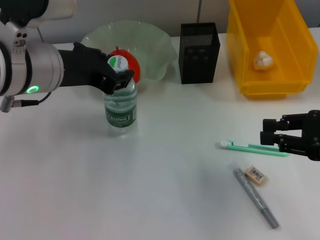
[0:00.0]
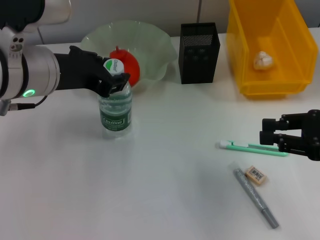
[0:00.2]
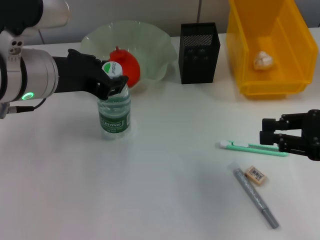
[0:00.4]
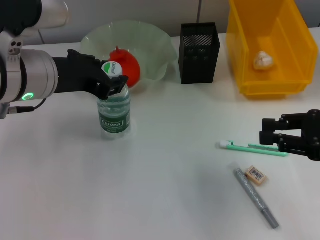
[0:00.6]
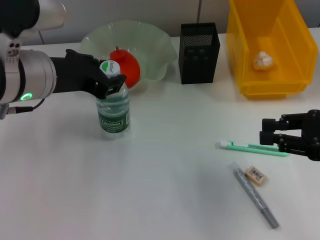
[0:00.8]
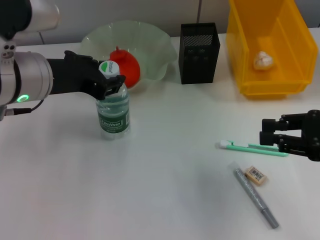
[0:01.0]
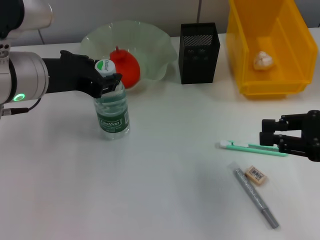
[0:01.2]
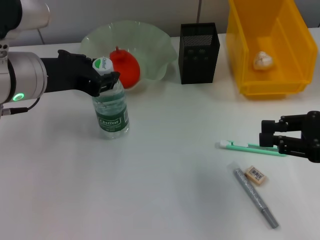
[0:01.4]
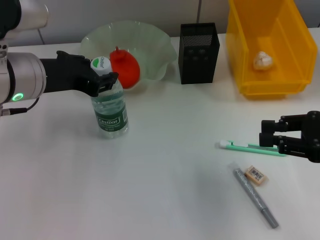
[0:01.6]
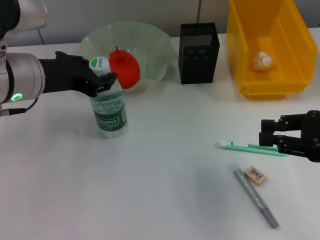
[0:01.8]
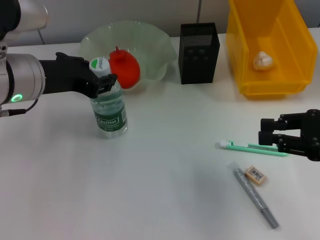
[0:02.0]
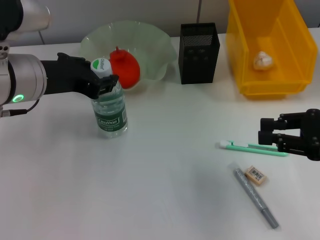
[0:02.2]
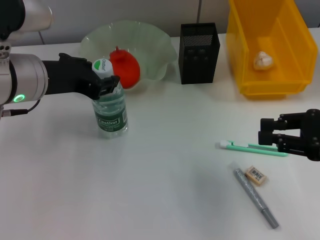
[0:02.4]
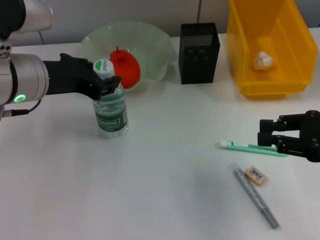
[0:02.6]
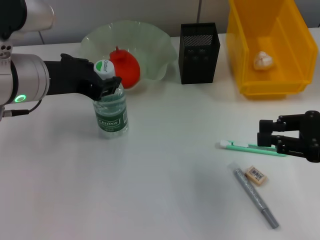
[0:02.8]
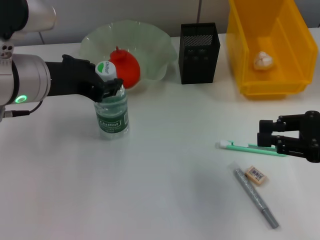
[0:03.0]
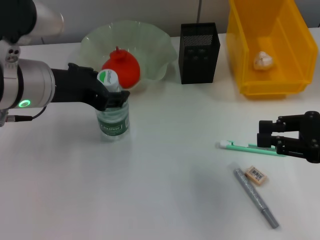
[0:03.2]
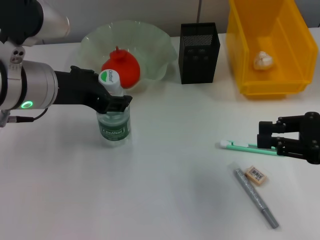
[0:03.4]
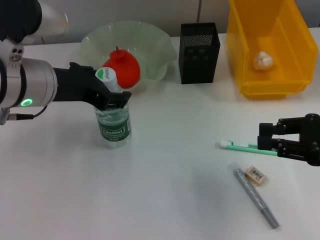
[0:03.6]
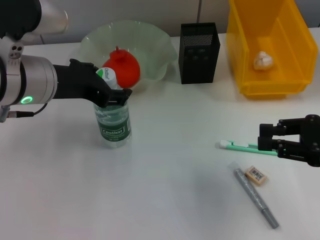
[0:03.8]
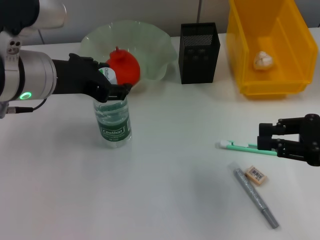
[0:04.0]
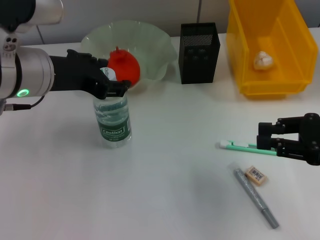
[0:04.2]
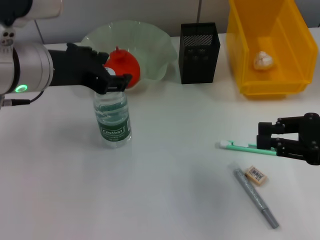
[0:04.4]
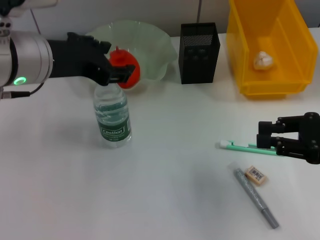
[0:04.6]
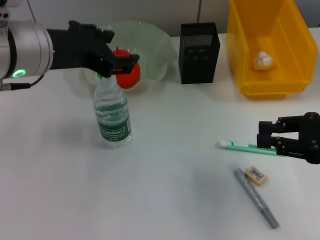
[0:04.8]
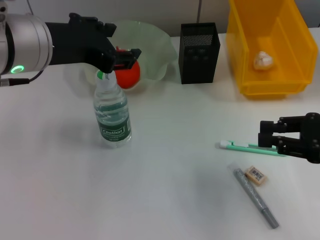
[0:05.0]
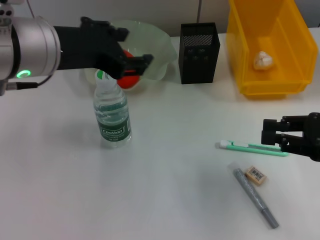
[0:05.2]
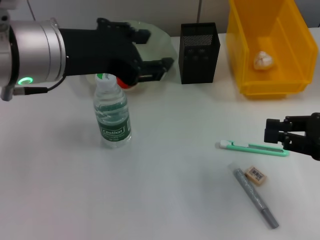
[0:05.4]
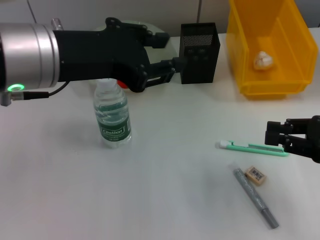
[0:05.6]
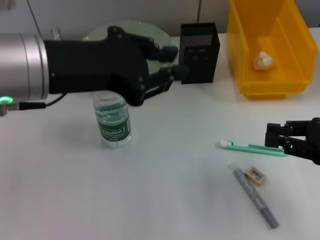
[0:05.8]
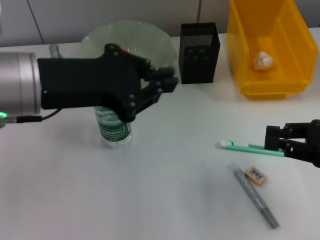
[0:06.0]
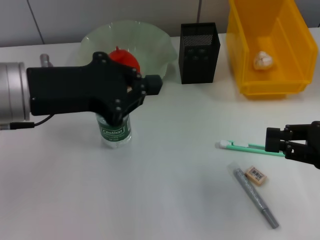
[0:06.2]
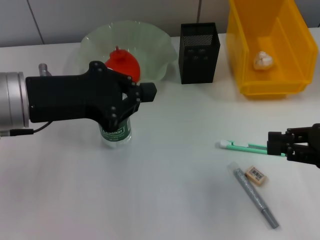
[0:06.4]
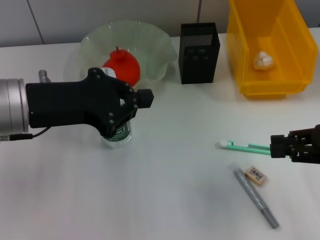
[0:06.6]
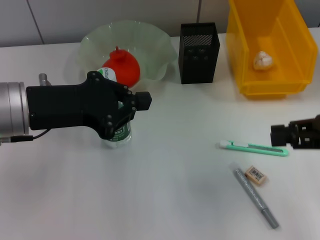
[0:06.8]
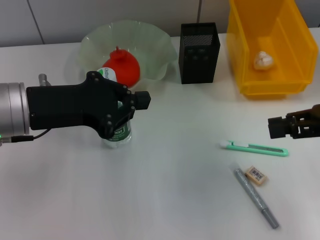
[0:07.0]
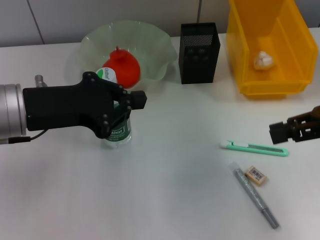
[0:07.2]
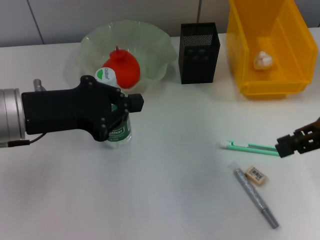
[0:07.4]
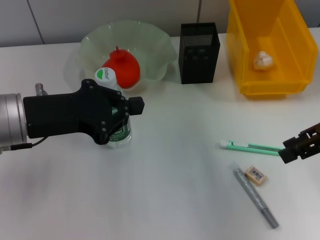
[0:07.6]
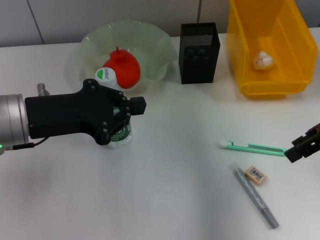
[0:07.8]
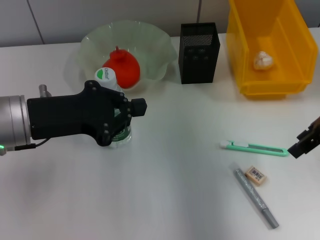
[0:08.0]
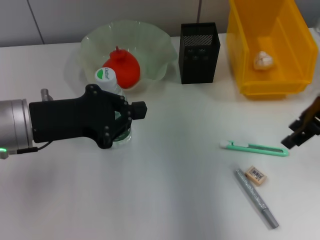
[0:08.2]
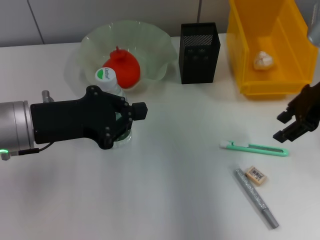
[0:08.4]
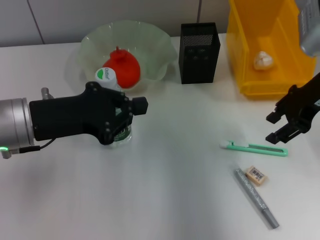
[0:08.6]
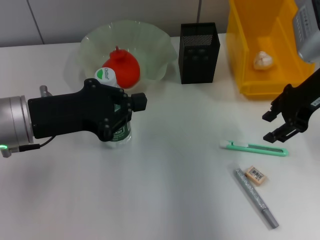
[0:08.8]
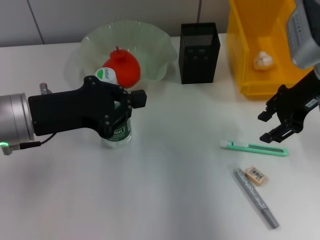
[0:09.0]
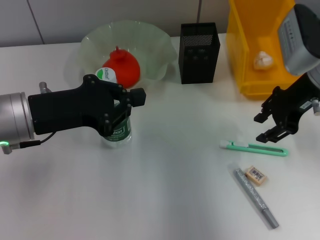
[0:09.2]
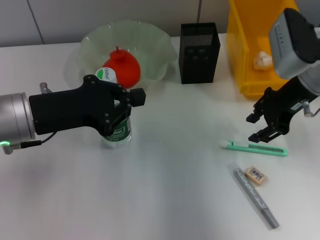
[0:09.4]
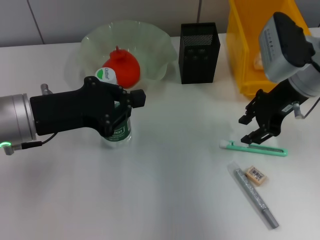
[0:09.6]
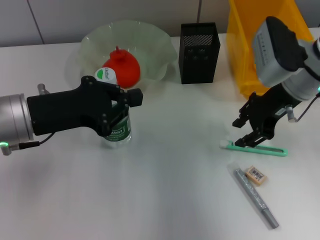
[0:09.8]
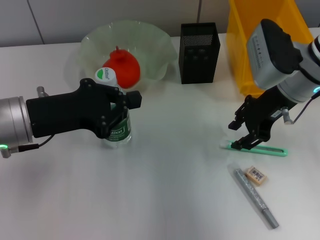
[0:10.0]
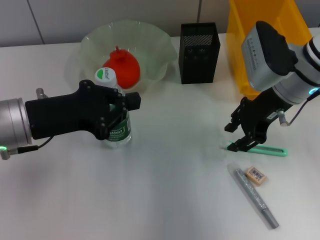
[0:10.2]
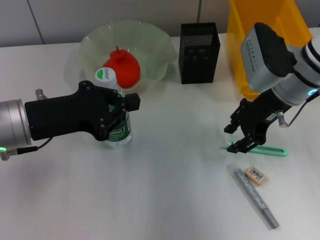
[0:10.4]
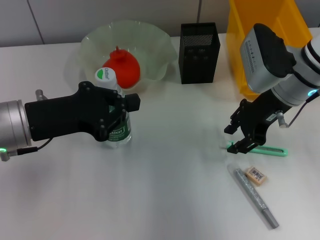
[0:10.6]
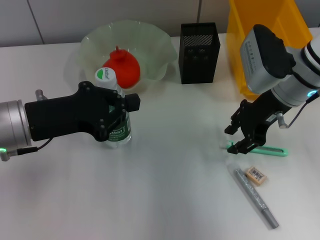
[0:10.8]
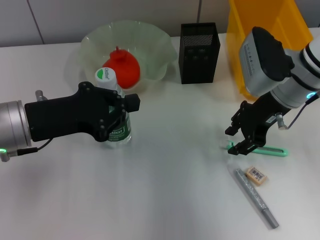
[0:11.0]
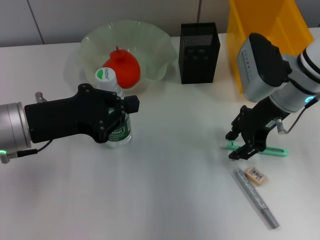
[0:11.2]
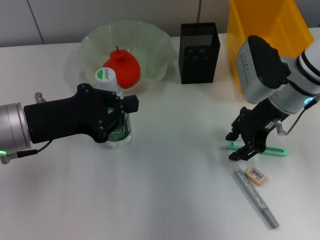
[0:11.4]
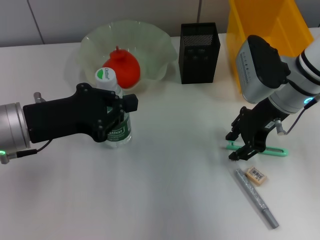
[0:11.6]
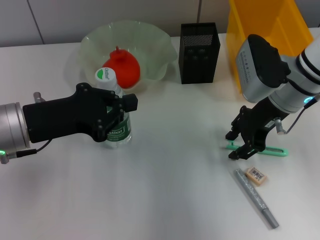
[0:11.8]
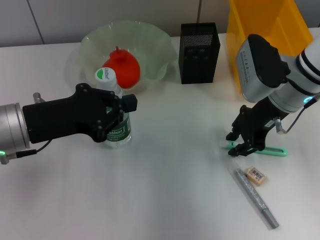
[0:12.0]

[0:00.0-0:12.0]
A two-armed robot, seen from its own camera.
Step, 0:00.0 to 0:04.2: Place the water bottle on the table with the left hand.
0:00.0 to 0:01.6: The grippers move only a little.
0:01.6 to 0:03.0: Both grippers stay about where they are.
0:03.0 to 0:04.4: The grippers move only a little.
0:04.4 to 0:06.0: The left gripper closes its fingers.
0:06.0 to 0:07.6: The left gripper is displaced downward by roughly 5 cm. The right gripper shifts approximately 10 cm upward and forward.
0:07.6 to 0:09.0: The right gripper travels forward and to the left by some 10 cm.
0:09.0 to 0:10.4: The right gripper ends up about 5 cm from where it was.
0:10.4 to 0:12.0: The two grippers keep their place.

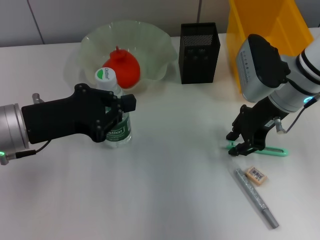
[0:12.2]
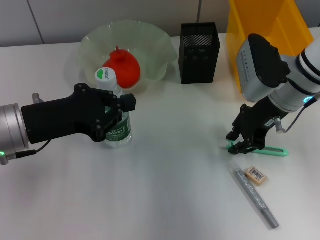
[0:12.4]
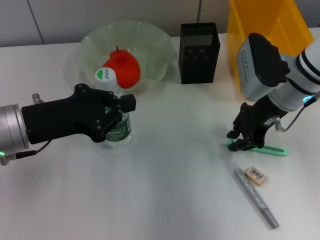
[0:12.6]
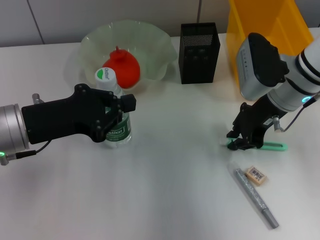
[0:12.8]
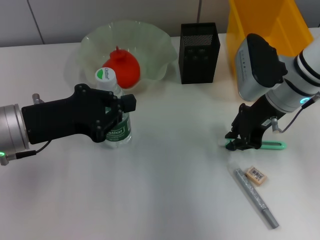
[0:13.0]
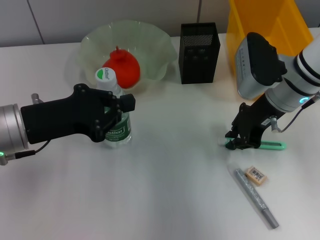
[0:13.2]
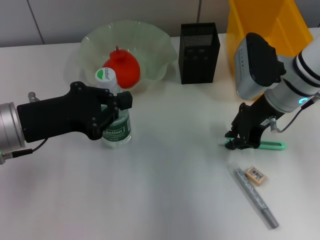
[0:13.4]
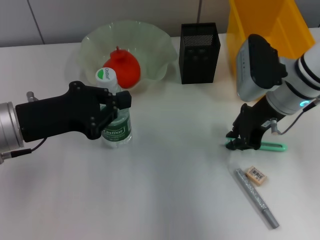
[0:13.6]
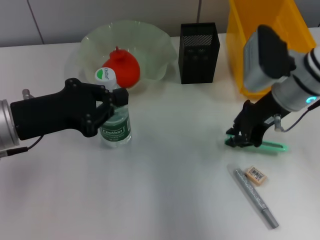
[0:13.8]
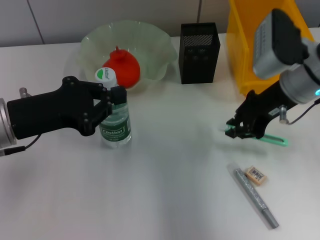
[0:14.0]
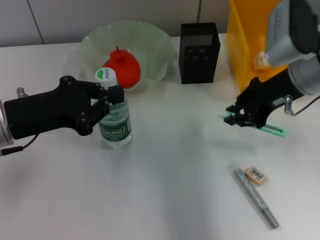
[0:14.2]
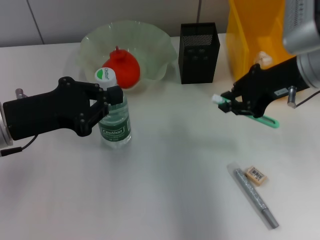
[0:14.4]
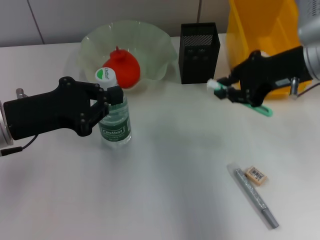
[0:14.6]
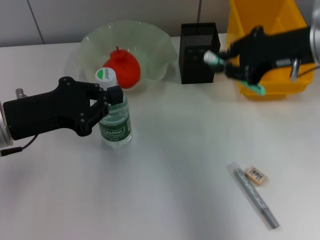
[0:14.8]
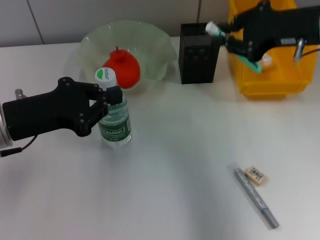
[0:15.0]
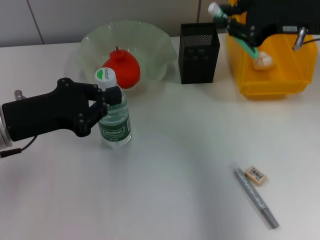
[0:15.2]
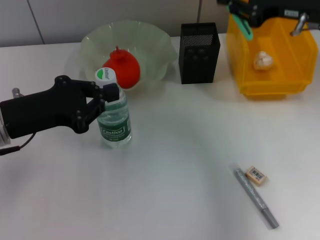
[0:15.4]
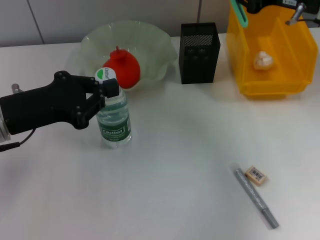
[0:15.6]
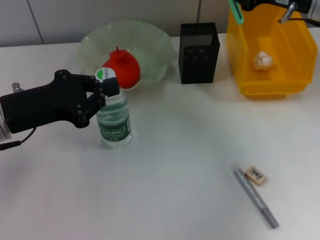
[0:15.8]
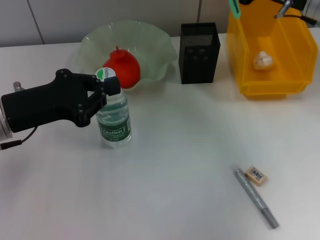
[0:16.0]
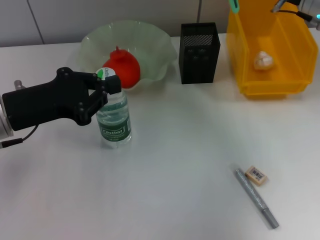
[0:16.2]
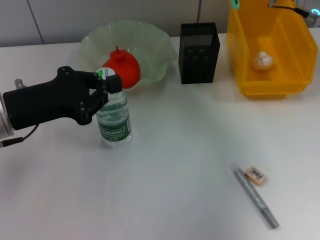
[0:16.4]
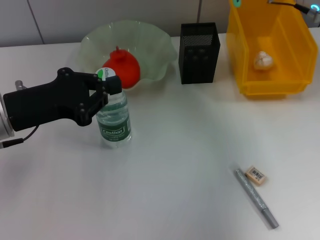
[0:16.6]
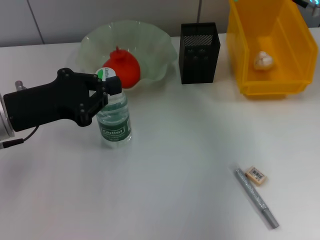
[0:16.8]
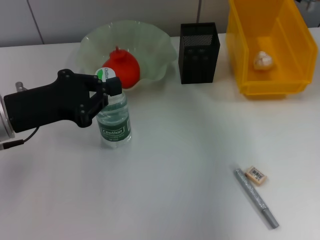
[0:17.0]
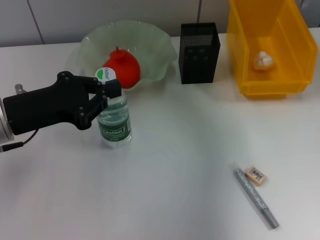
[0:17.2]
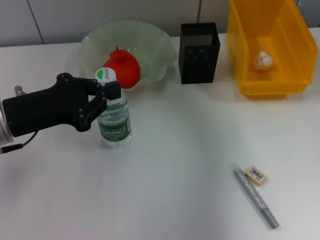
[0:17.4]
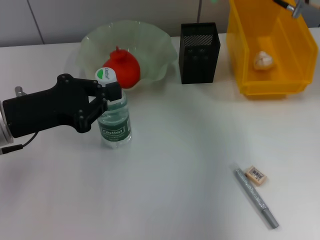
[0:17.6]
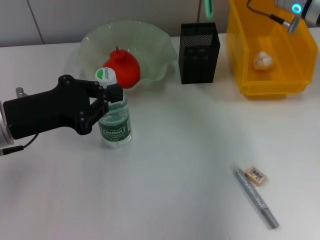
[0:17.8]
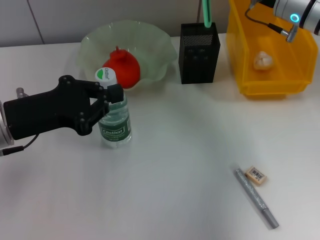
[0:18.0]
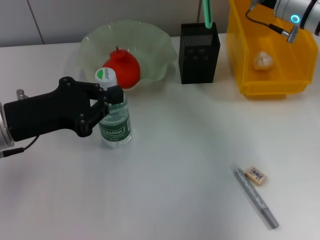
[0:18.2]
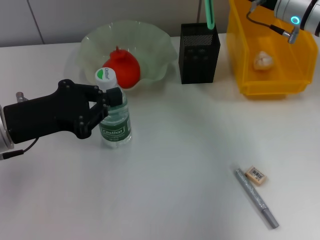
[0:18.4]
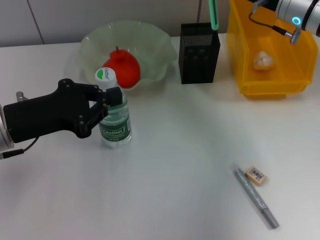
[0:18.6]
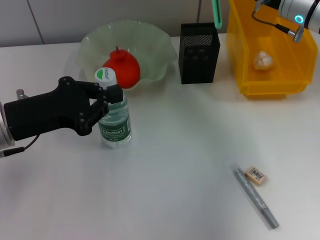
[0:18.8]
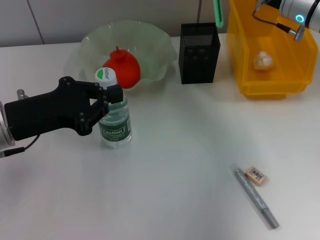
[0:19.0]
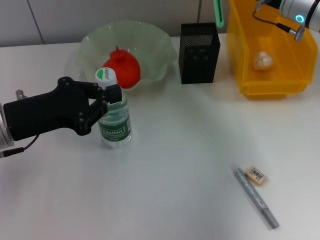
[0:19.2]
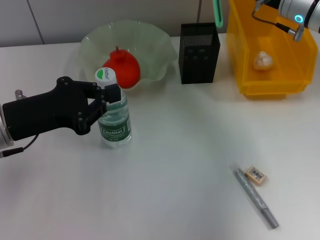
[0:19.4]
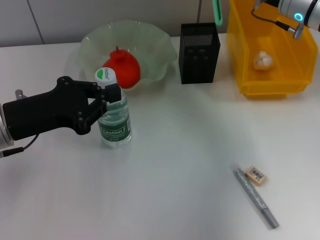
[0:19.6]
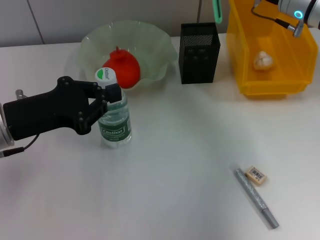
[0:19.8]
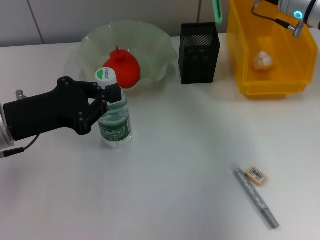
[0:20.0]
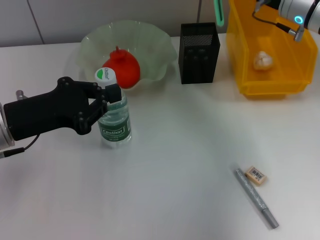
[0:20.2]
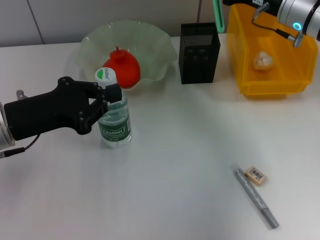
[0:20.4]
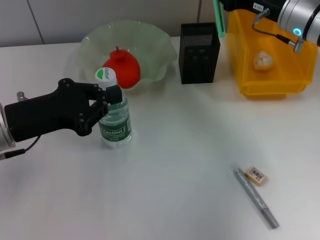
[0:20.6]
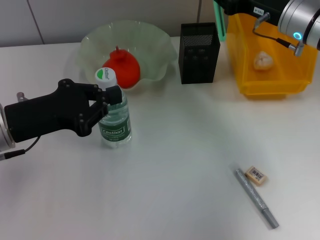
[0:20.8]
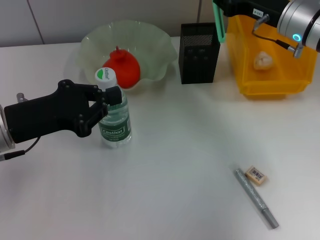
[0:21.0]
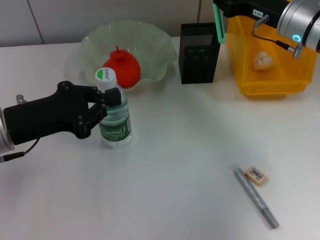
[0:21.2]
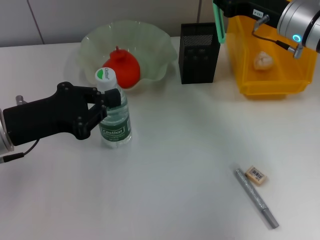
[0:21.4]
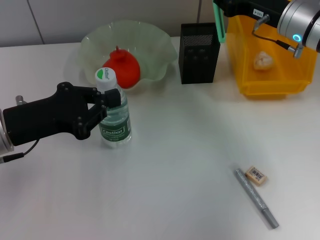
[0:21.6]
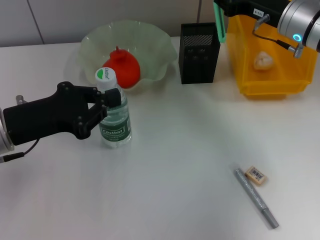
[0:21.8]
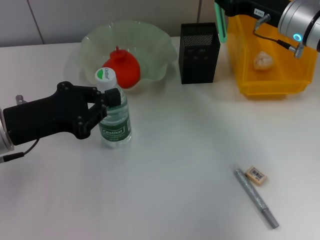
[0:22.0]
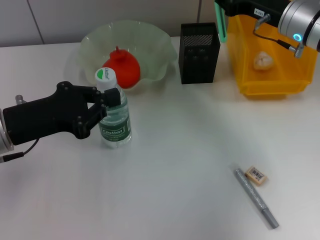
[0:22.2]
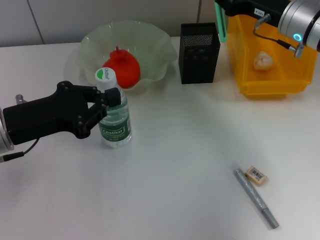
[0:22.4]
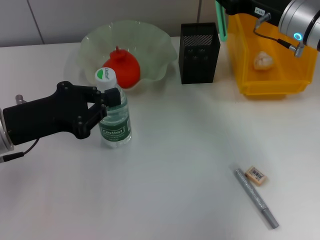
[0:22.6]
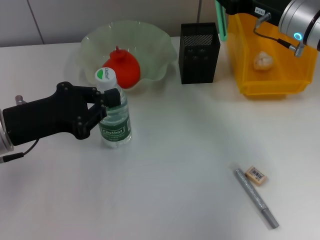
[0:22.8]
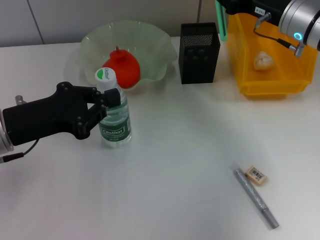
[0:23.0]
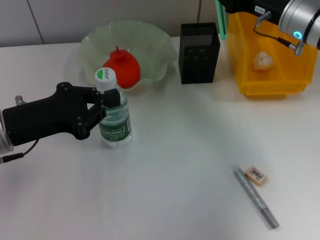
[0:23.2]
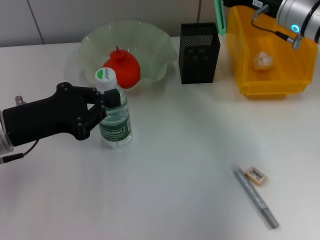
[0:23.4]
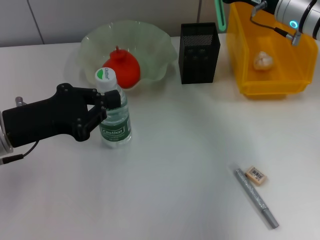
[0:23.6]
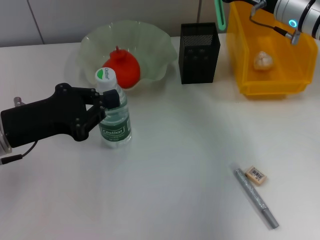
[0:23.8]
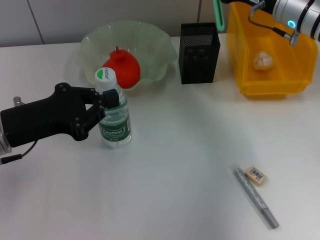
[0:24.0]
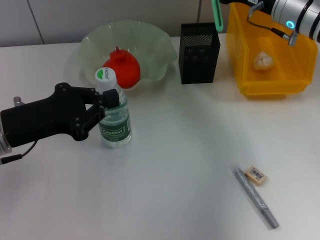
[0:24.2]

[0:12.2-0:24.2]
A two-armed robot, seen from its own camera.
0:12.2 to 0:13.8: The grippers move only a little.
0:13.8 to 0:15.2: The right gripper heads upward, covering roughly 10 cm.
0:15.2 to 0:16.6: The right gripper travels forward by some 10 cm.
0:18.2 to 0:21.2: The grippers stay close to where they were, moving slightly.
0:21.2 to 0:22.6: Both grippers stay put.
0:22.6 to 0:24.2: The grippers move only a little.
